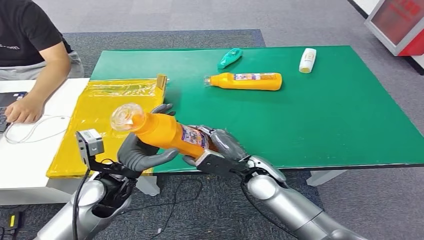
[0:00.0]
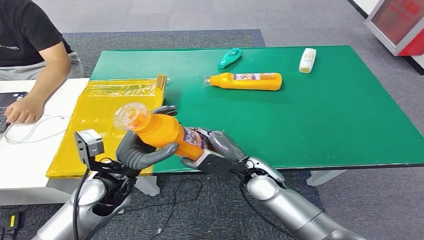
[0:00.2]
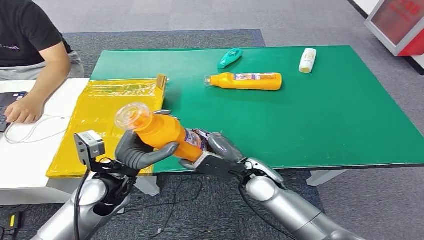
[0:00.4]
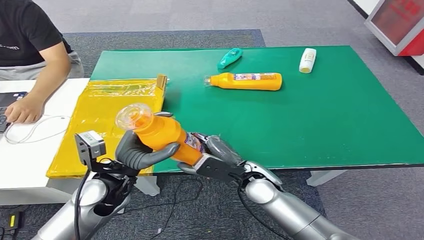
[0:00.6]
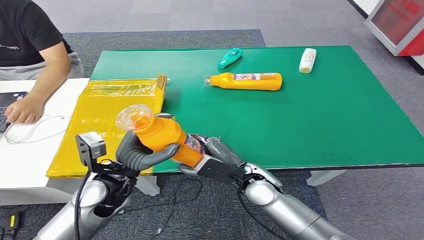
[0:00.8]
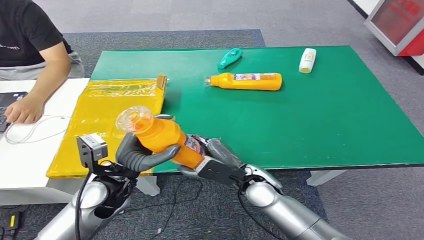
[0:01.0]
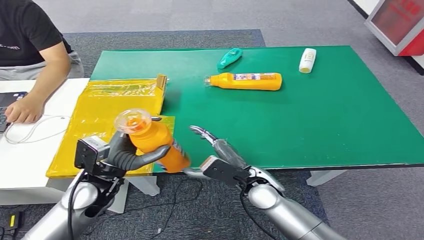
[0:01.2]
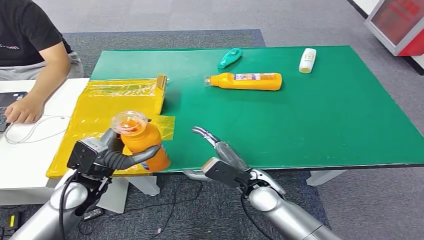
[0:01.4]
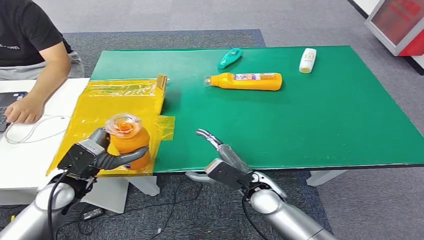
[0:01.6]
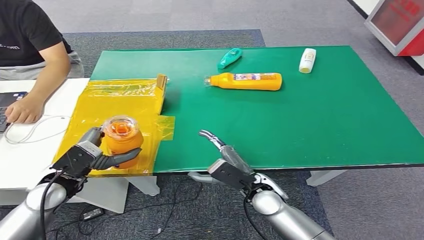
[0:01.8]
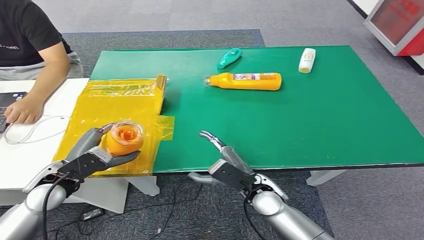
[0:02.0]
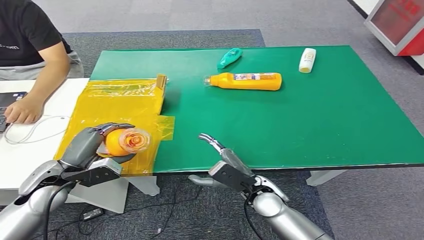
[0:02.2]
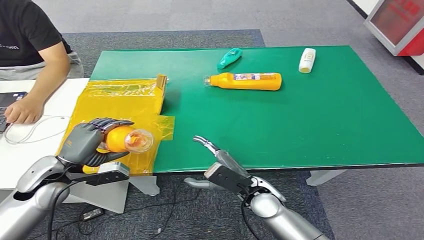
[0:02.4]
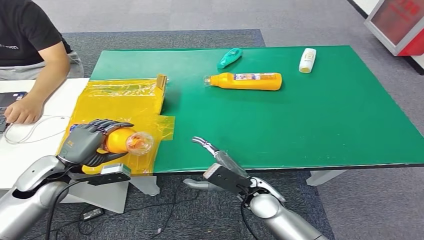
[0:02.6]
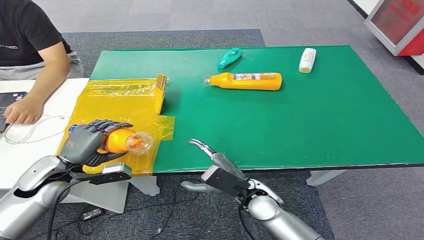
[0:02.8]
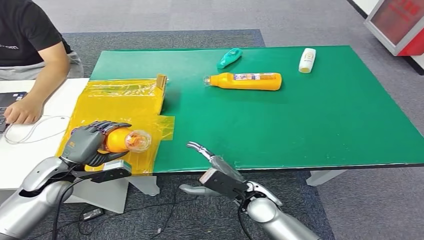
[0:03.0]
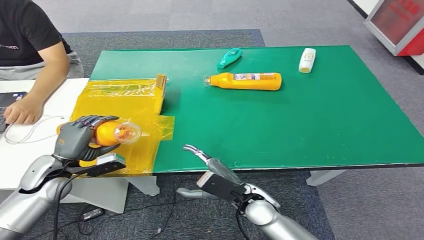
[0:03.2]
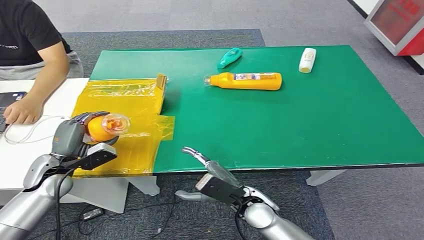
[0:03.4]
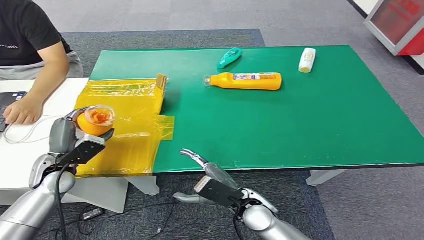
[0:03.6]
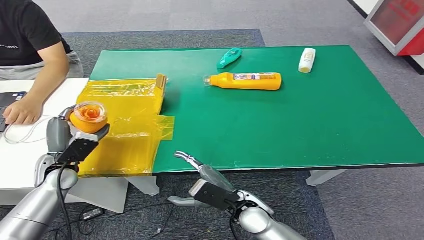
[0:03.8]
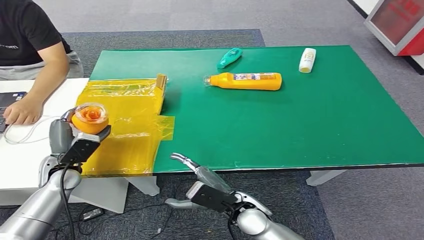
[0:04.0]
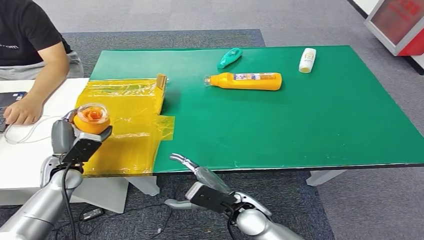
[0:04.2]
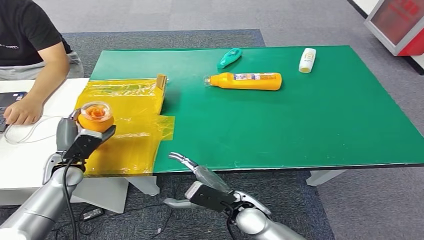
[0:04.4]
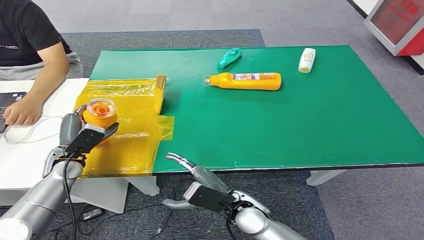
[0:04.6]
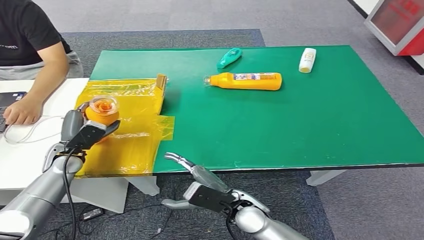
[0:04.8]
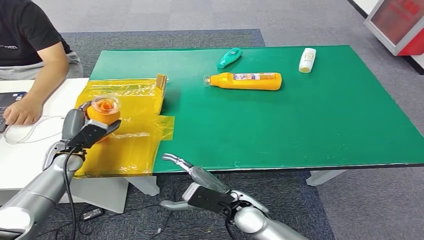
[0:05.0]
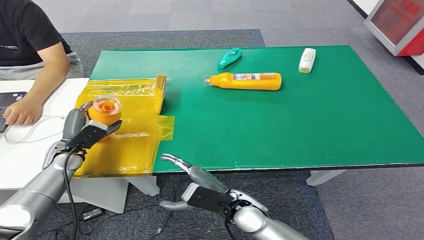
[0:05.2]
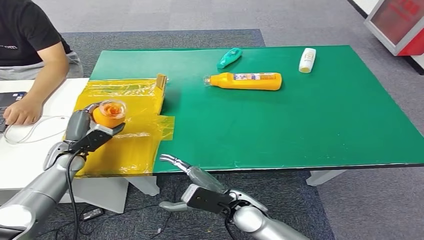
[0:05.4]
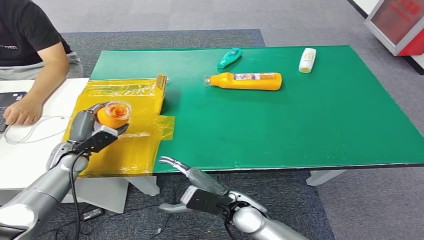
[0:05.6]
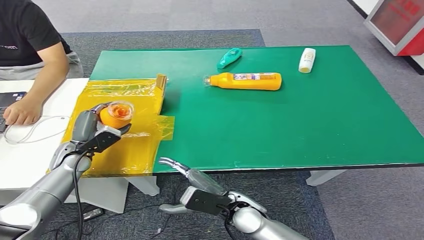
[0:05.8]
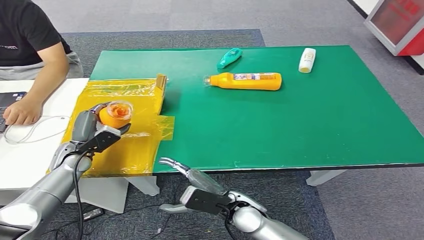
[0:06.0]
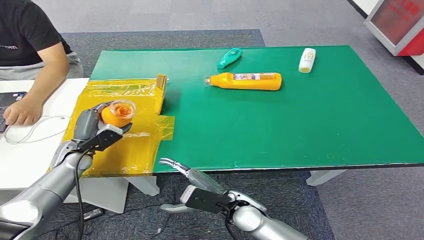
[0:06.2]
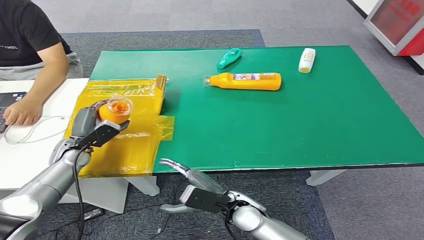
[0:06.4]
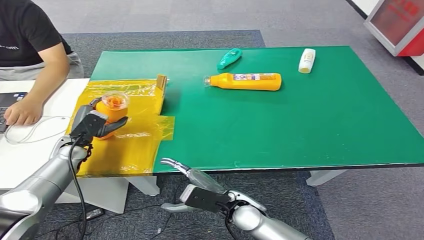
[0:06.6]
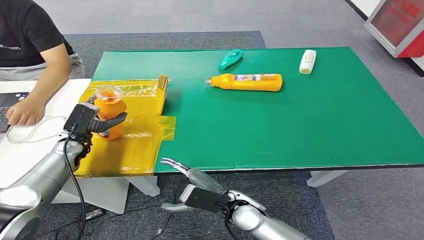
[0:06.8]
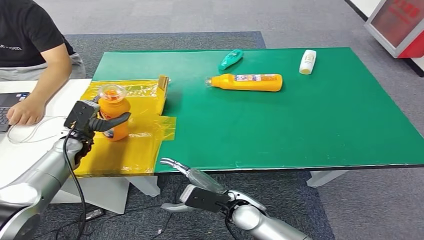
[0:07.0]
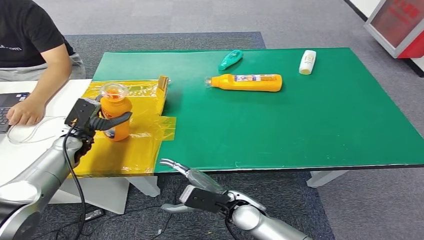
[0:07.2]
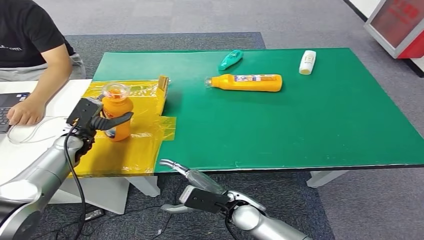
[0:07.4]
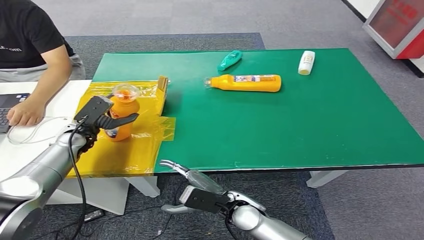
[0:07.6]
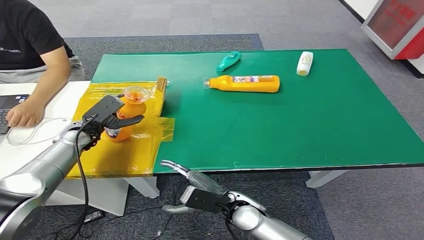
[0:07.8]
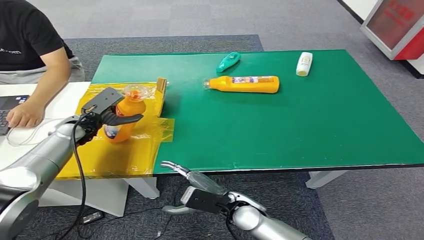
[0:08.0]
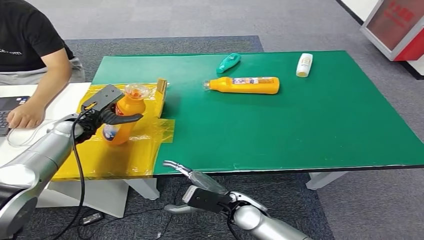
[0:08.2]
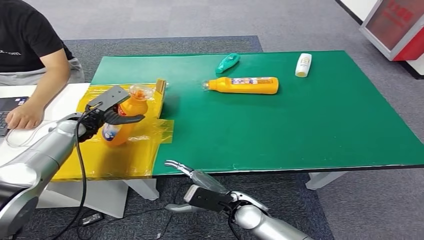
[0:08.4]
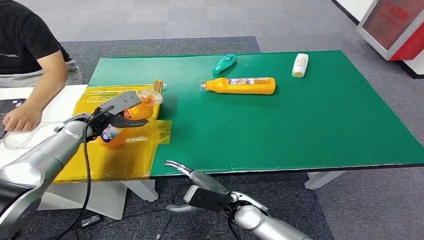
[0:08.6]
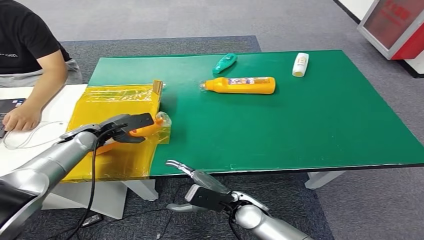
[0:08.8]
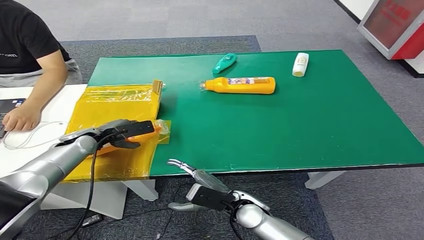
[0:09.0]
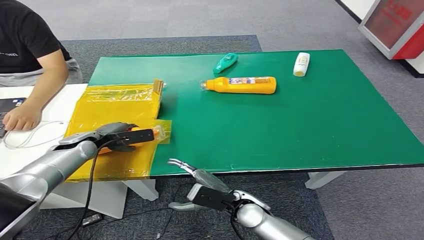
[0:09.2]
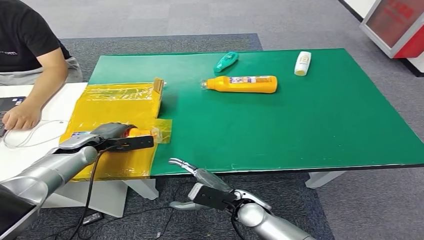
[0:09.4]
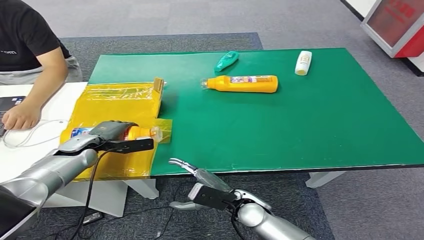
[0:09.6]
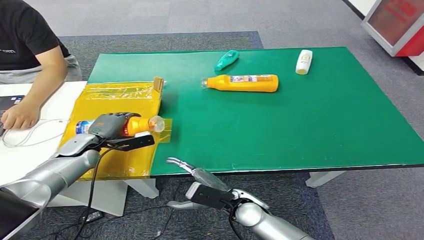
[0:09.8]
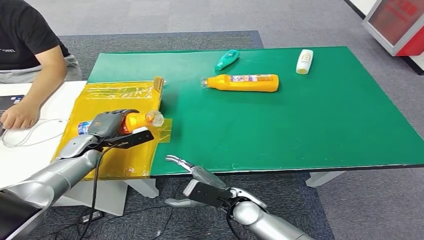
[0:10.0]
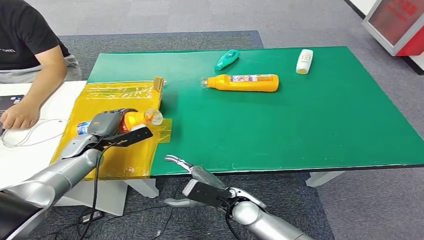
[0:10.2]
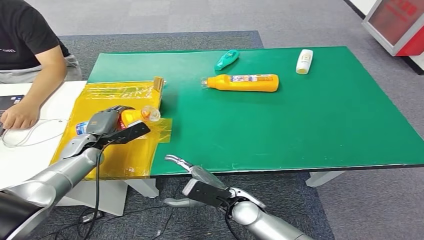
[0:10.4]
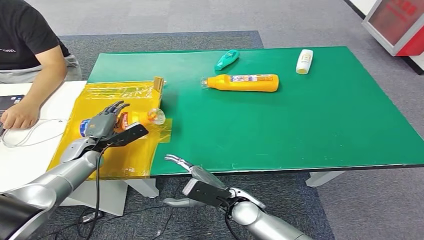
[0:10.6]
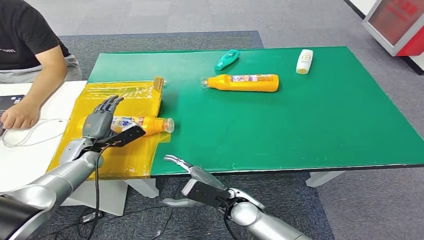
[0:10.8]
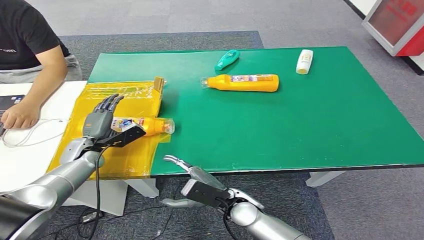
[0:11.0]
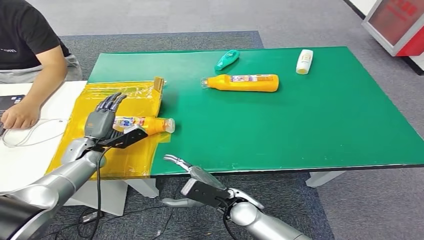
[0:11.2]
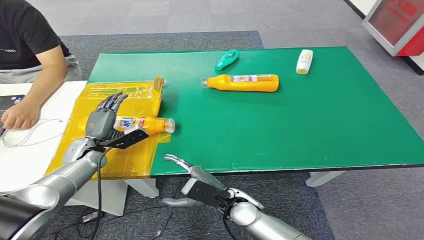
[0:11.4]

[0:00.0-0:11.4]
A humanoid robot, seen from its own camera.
Step, 0:00.0 to 0:11.4: Turn the bottle to the front side.
0:00.0 to 0:01.4: The left hand is displaced to the left by approximately 5 cm.
0:01.4 to 0:02.8: The left hand is displaced to the left by some 10 cm.
0:02.8 to 0:04.2: The left hand changes place by some 5 cm.
0:04.2 to 0:05.6: The hands make only small movements.
0:10.0 to 0:11.4: There are only small adjustments of the hands.
